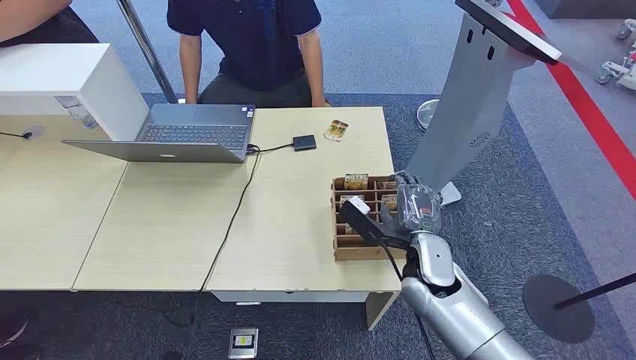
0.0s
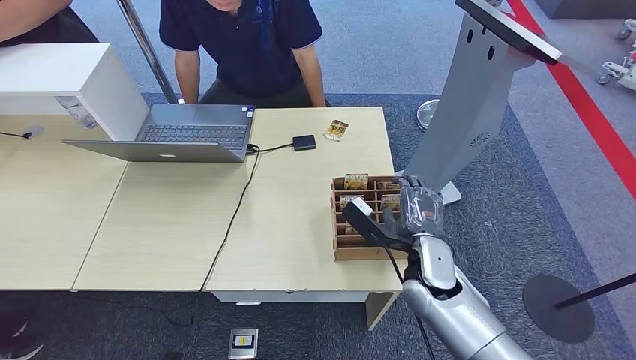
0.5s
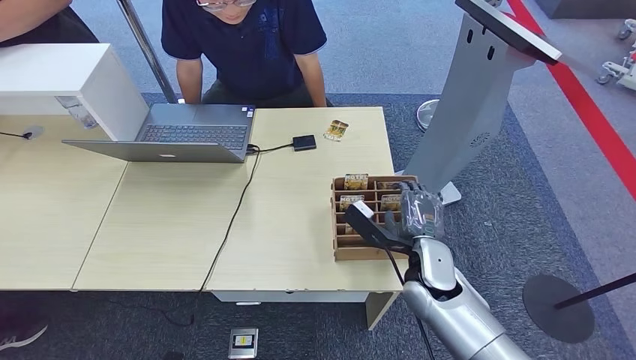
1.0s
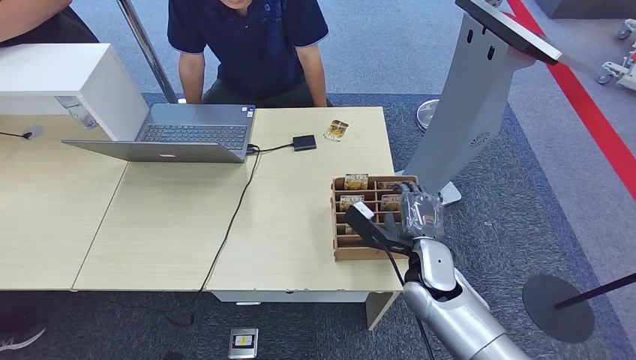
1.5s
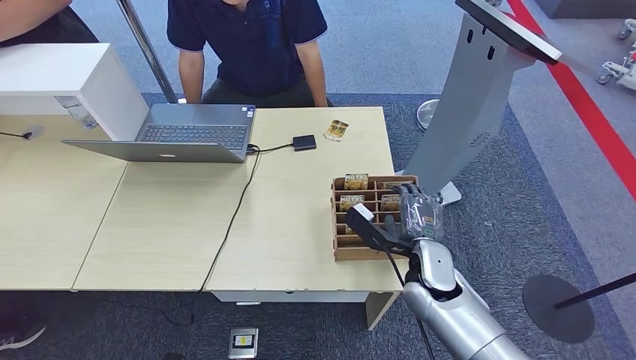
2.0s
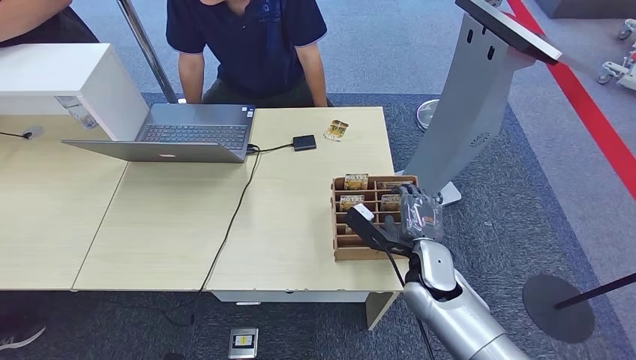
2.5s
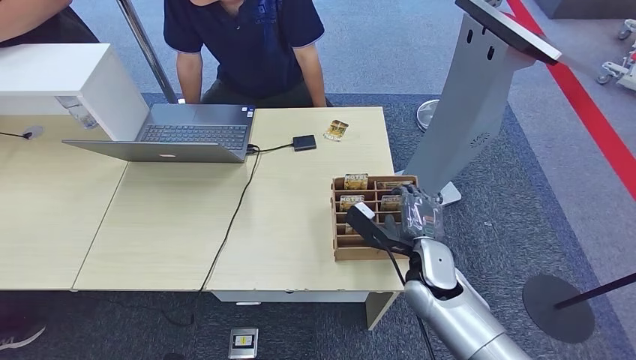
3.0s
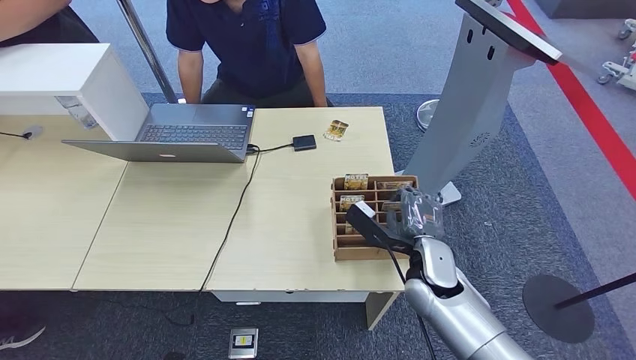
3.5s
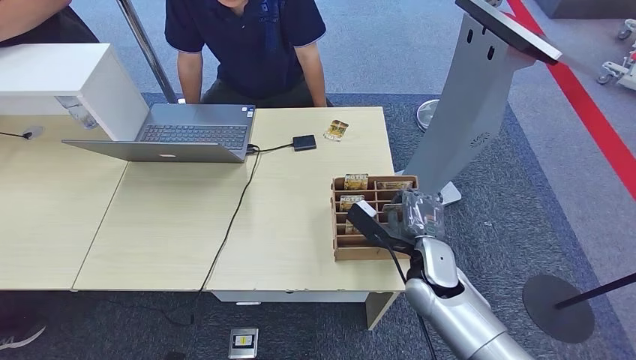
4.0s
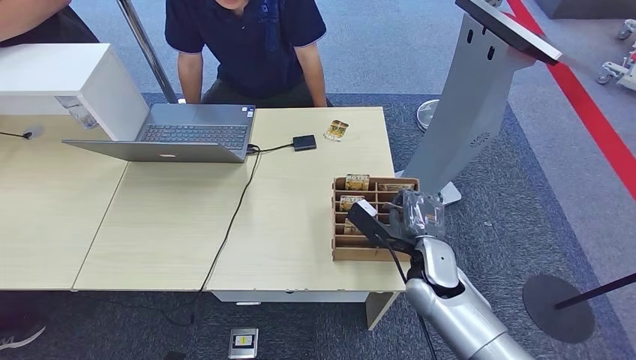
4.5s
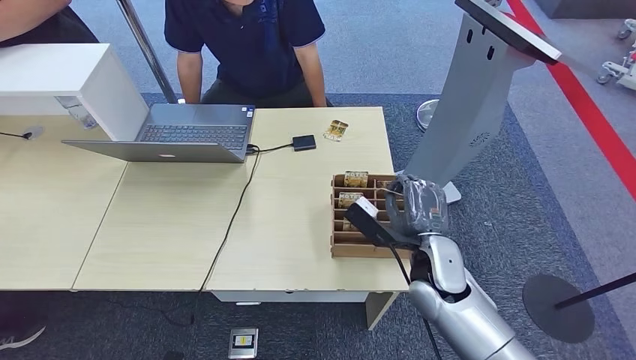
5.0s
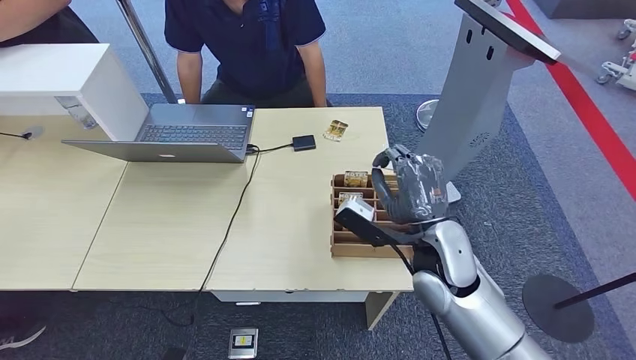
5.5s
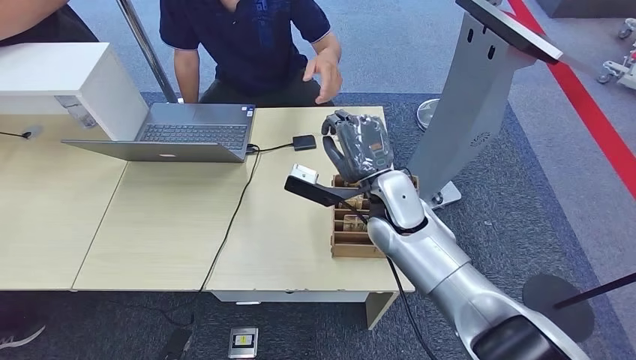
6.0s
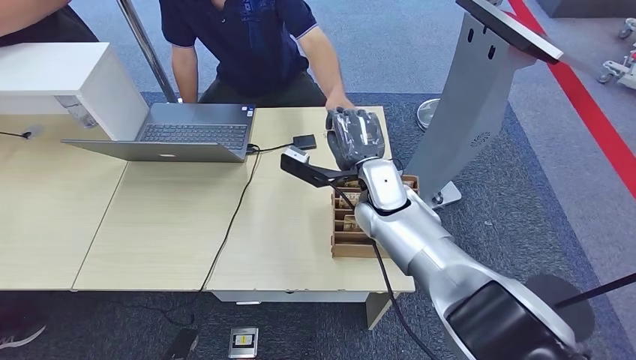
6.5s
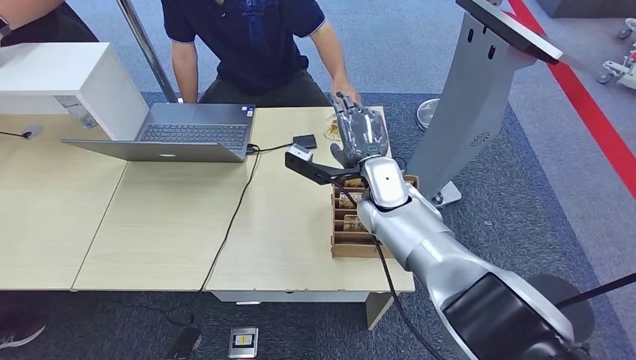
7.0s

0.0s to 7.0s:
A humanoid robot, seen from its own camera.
Step, 0.0s to 4.5s: Pick up the key card from the card box.
Step, 5.0s to 7.0s: Hand the key card to the target.
2.0s to 3.5s: Both hands stay about where they are.
3.5s to 5.0s: The hands move only a little.
5.0s to 7.0s: The right hand moves forward, to the left and upward, roughly 15 cm, while the left hand ends up some 5 cm from where it was.

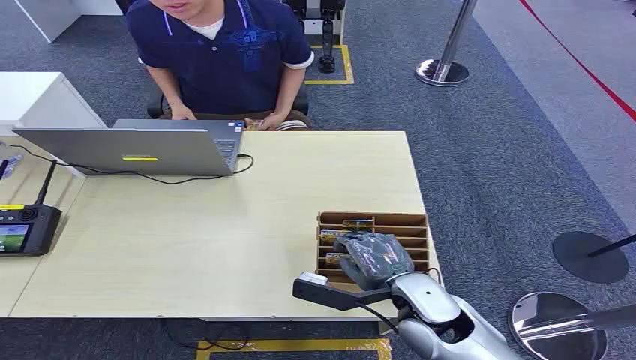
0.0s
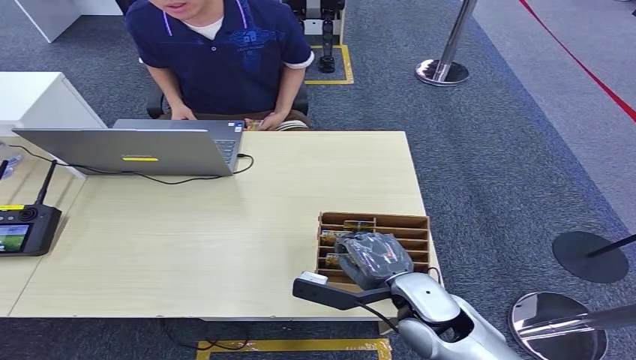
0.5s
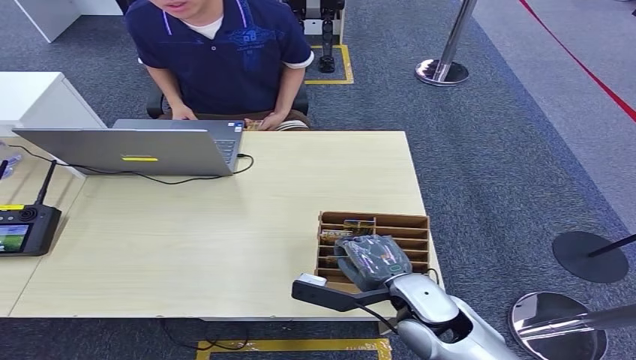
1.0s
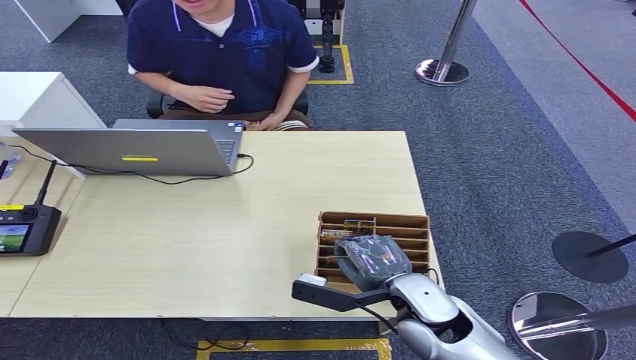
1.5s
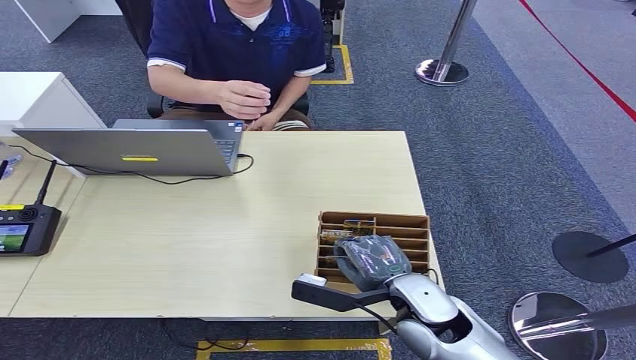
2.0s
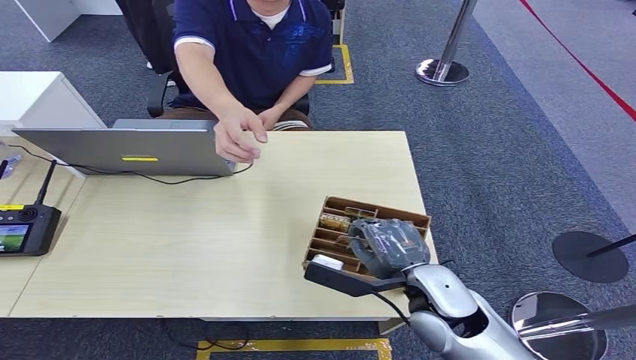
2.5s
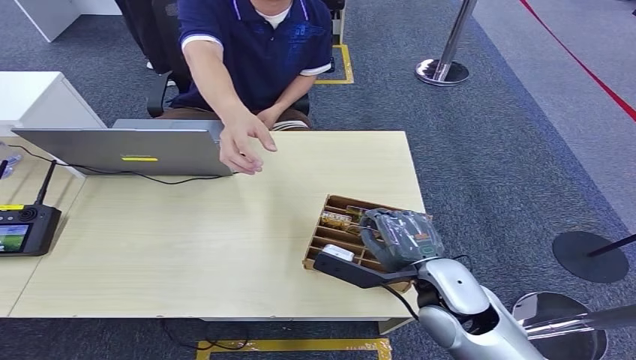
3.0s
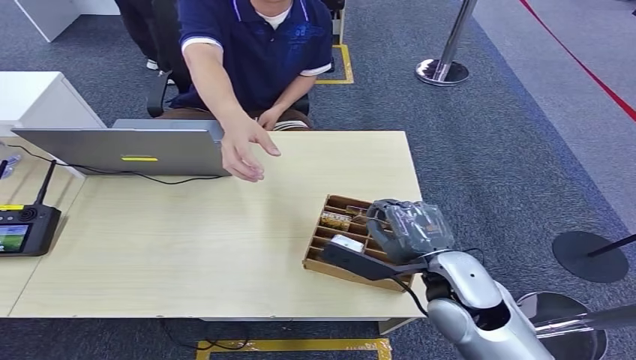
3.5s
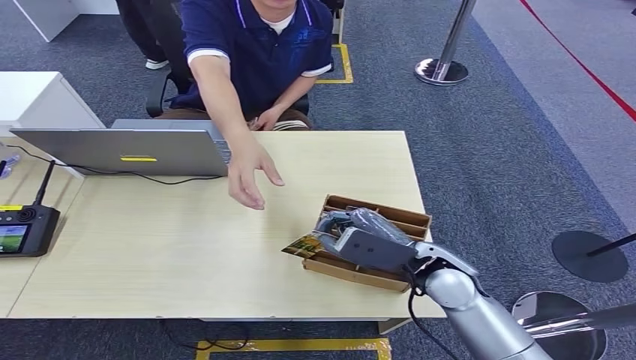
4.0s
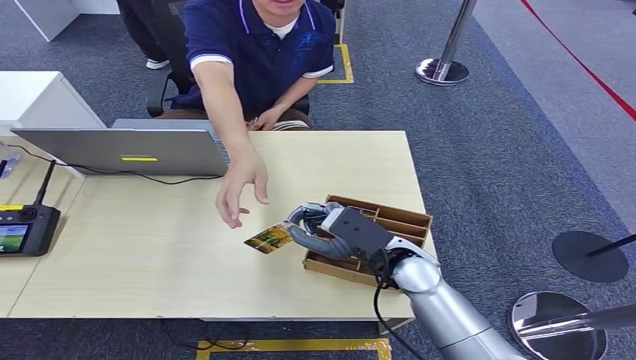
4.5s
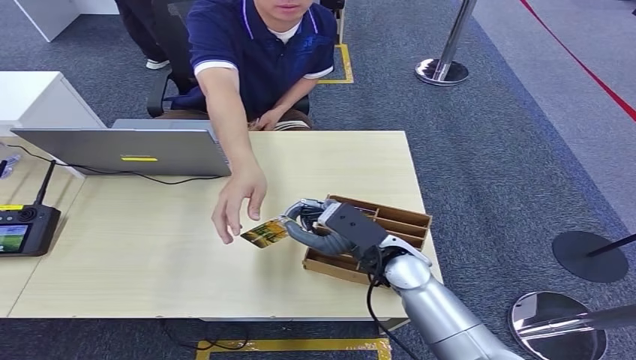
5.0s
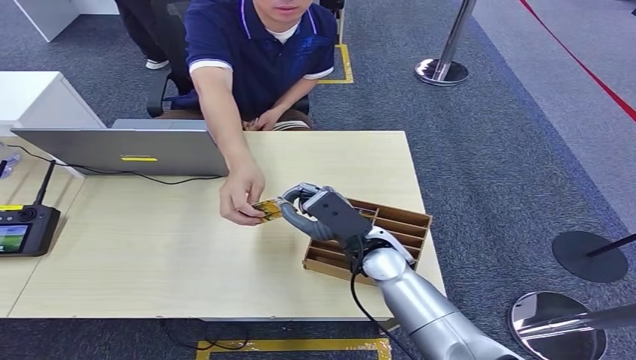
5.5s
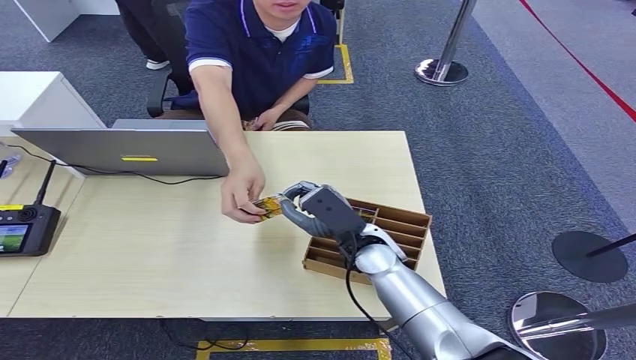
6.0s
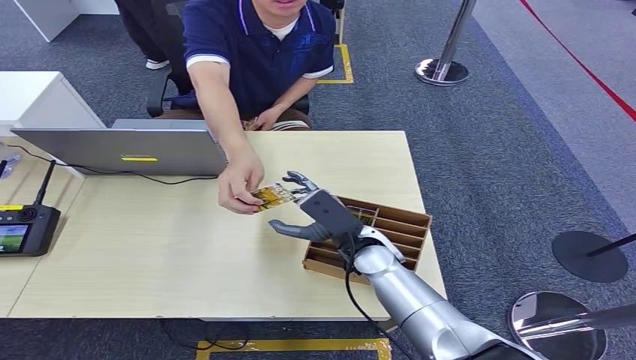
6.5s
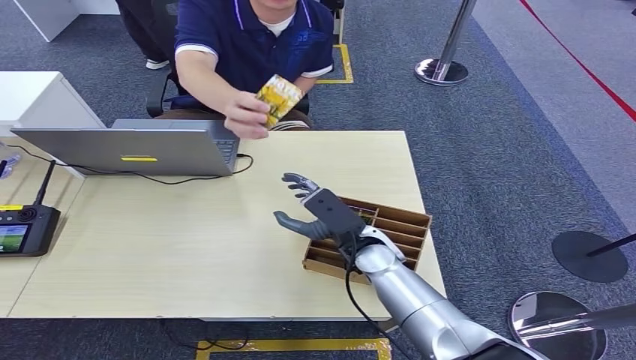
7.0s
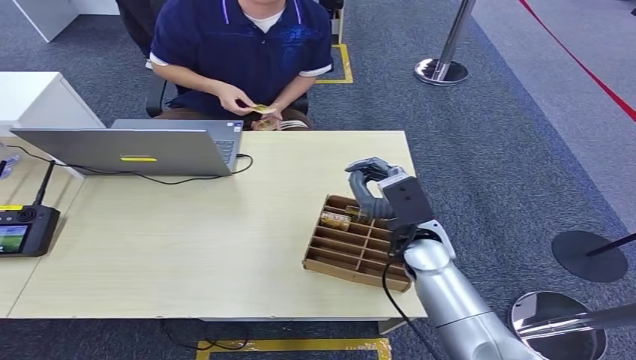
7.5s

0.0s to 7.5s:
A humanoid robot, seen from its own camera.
Step, 0.0s to 3.5s: Pick up the key card from the card box.
Step, 4.0s to 7.0s: Hand the key card to the target.
2.0s to 4.0s: The right hand travels forward by about 5 cm.
4.0s to 5.5s: The right hand shifts about 10 cm to the left.
5.5s to 7.5s: The right hand shifts about 5 cm to the right.
